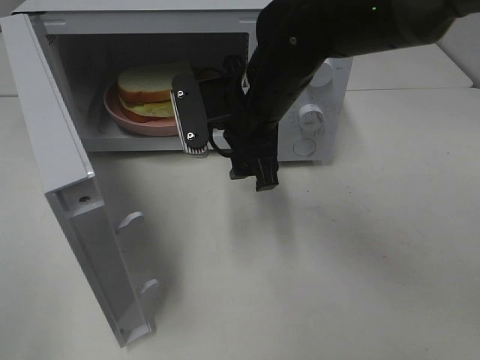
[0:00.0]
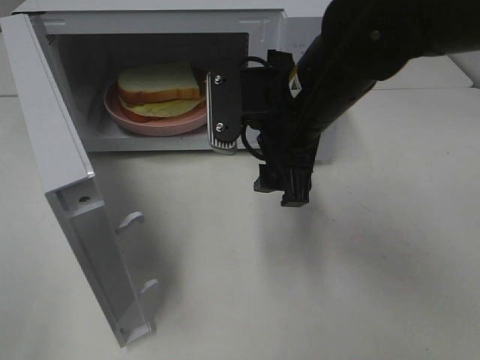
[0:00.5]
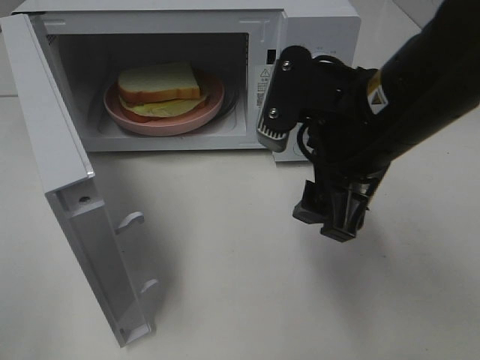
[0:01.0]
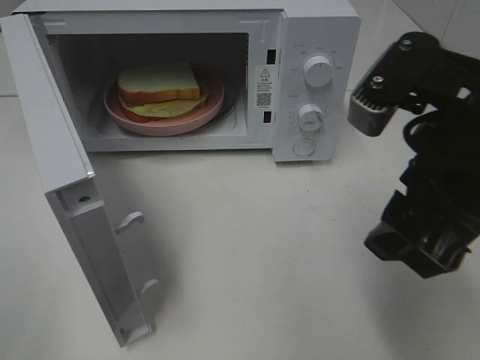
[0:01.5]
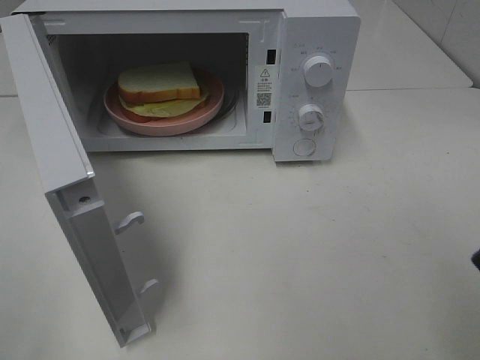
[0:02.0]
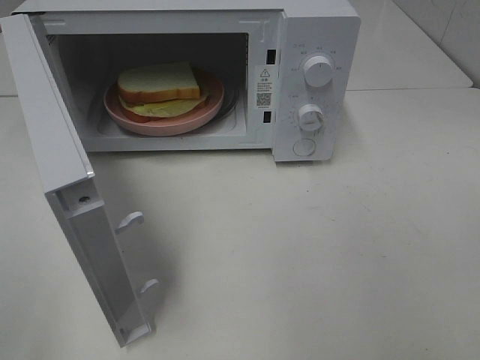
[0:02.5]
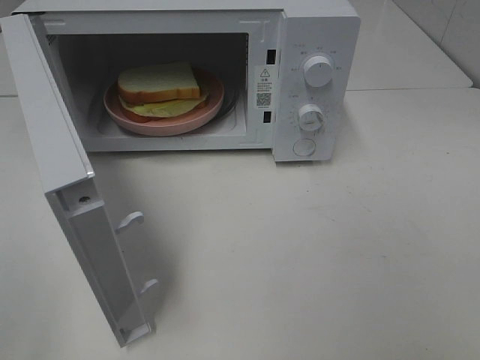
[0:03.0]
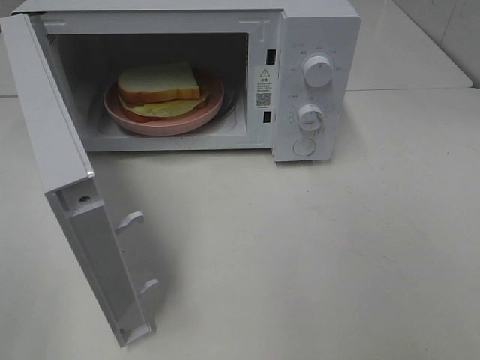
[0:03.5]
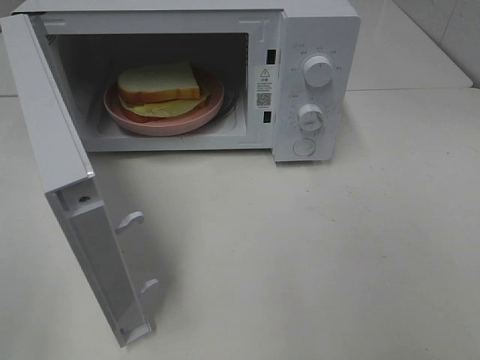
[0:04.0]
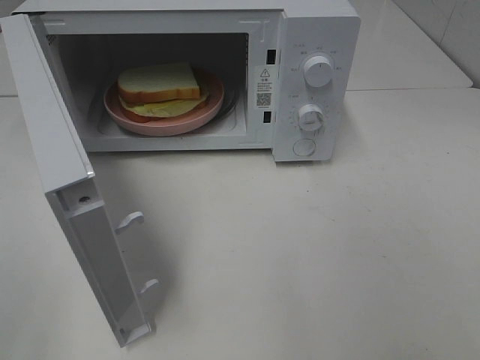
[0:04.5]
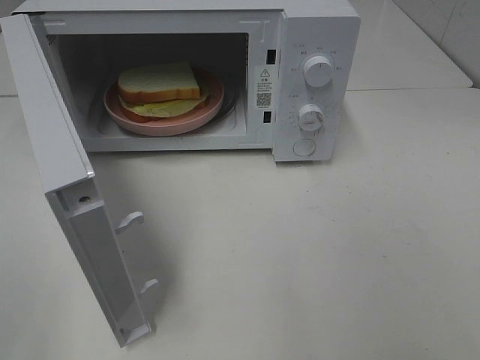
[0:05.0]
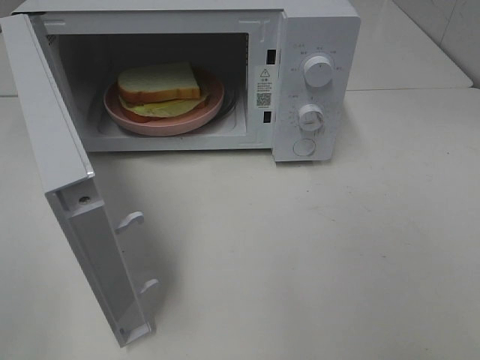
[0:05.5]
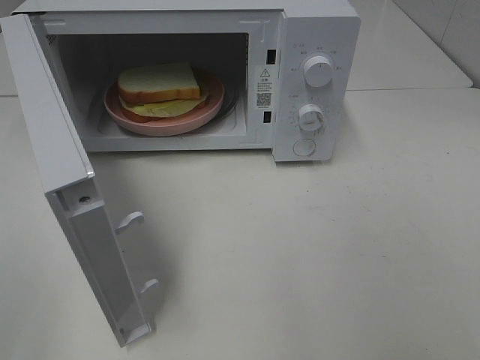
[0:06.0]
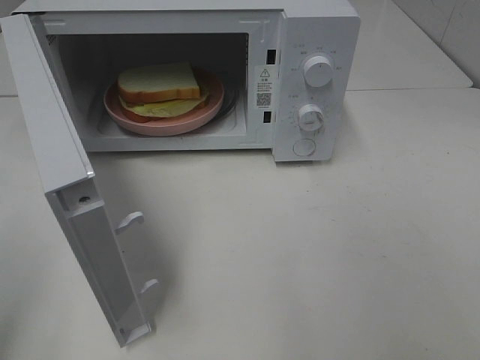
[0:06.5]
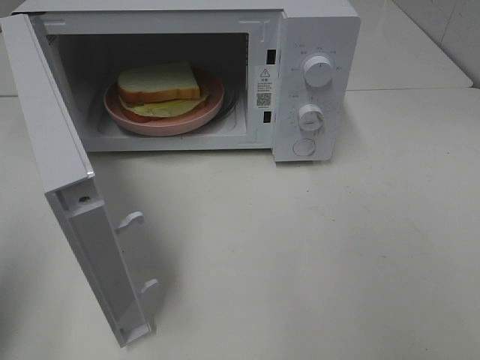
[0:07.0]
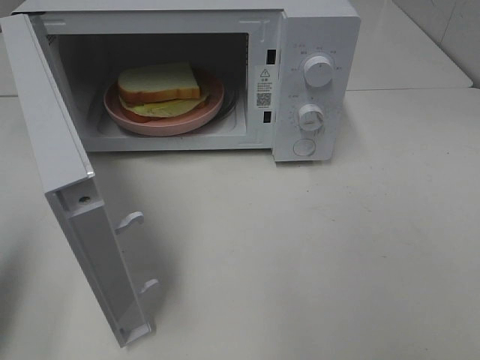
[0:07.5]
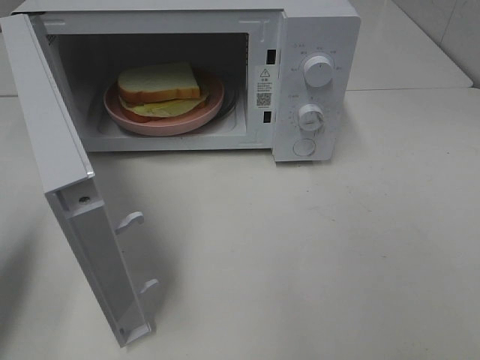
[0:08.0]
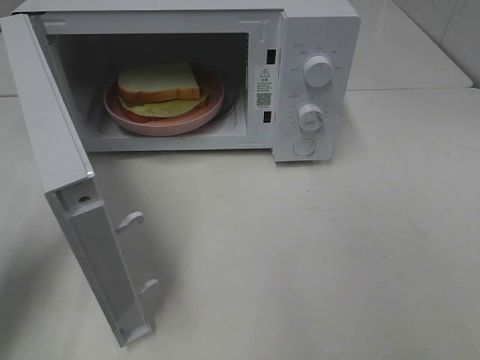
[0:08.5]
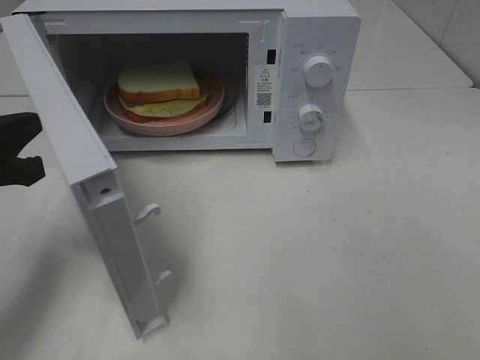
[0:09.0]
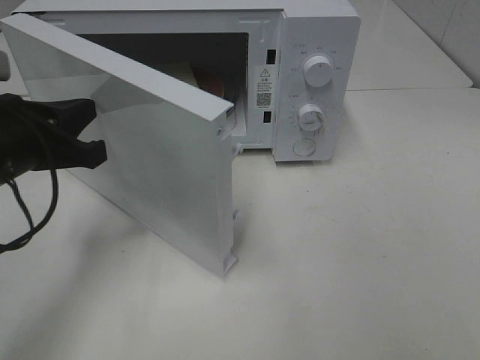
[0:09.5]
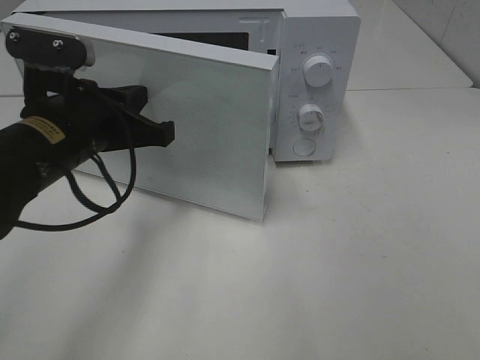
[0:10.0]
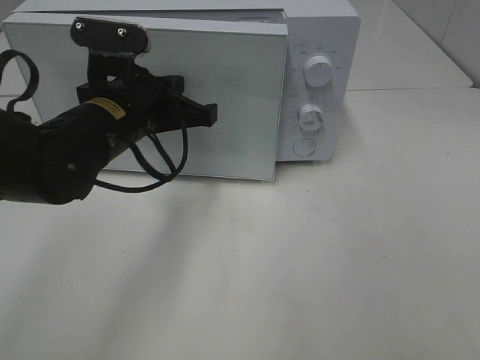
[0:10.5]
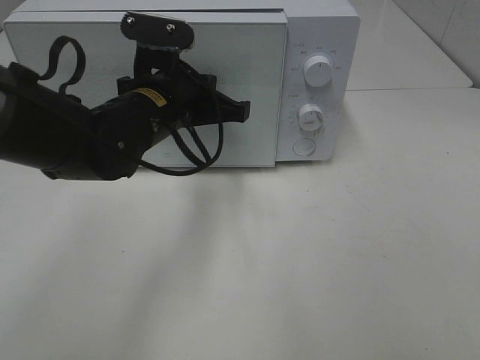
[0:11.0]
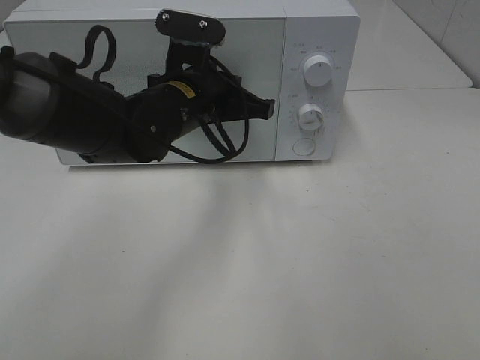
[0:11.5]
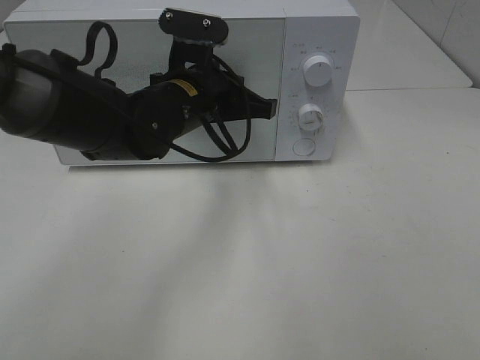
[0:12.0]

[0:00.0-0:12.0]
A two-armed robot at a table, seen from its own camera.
Task of the whole recording: Heat Sandwich.
0:00.0 to 0:02.0: The right gripper shifts approximately 30 cm backward, to the right and upward.
0:02.0 to 0:04.0: The right gripper shifts roughly 15 cm backward and to the right.
0:04.0 to 0:06.0: The two grippers keep their place.
0:06.0 to 0:08.0: The left gripper travels forward and downward by some 20 cm, and closes up.
0:08.0 to 0:10.0: The left gripper travels to the right and forward by approximately 20 cm.
0:10.0 to 0:12.0: The left gripper goes approximately 15 cm to the right and forward.

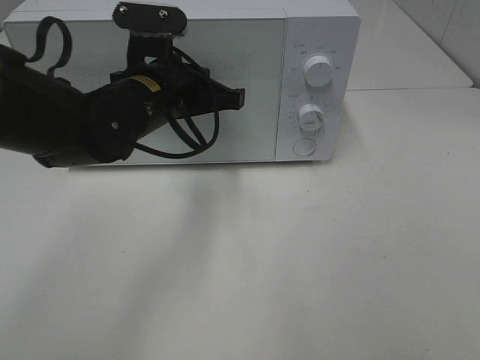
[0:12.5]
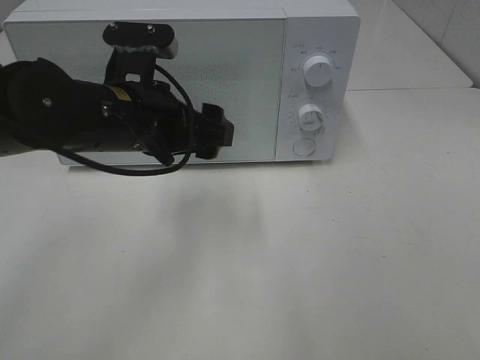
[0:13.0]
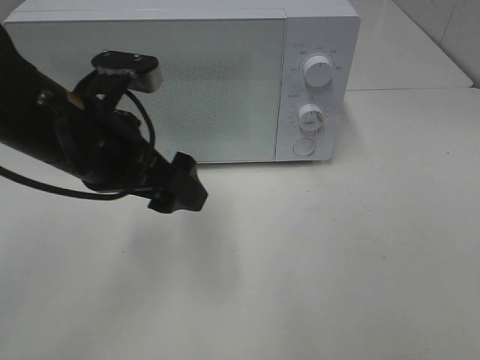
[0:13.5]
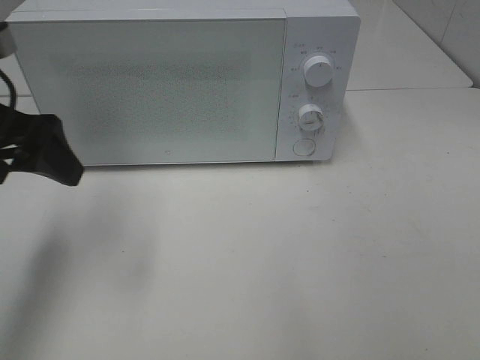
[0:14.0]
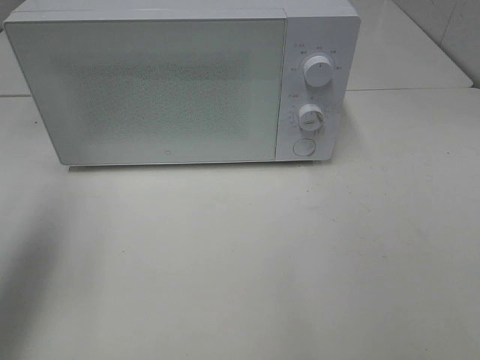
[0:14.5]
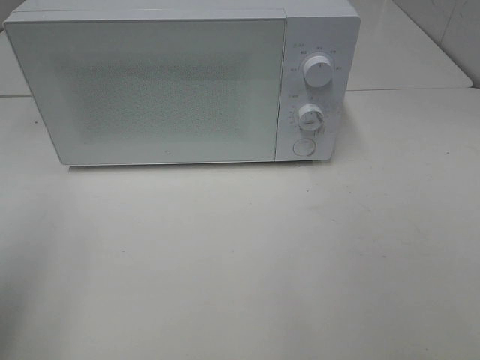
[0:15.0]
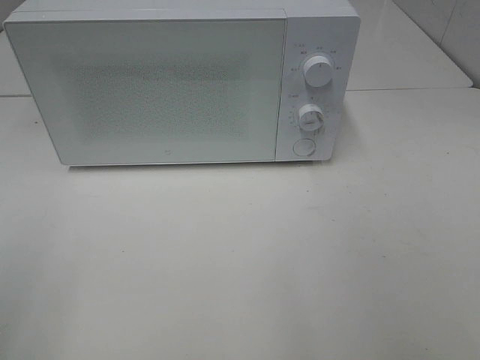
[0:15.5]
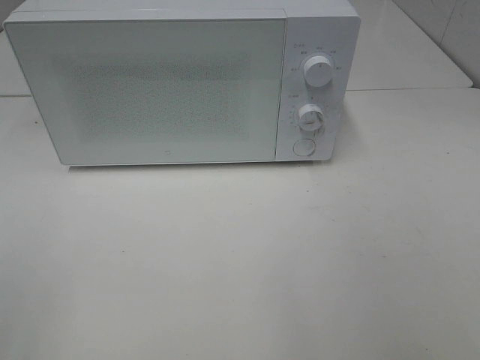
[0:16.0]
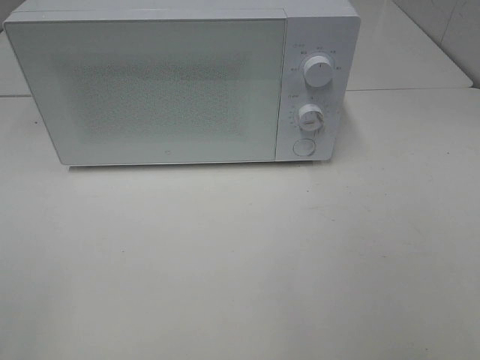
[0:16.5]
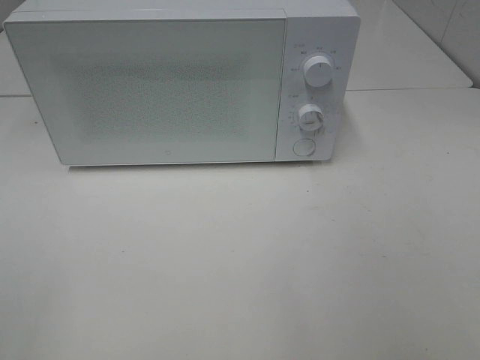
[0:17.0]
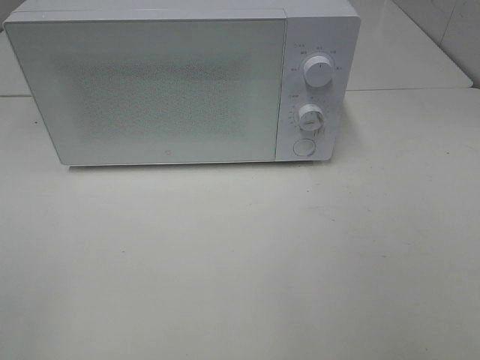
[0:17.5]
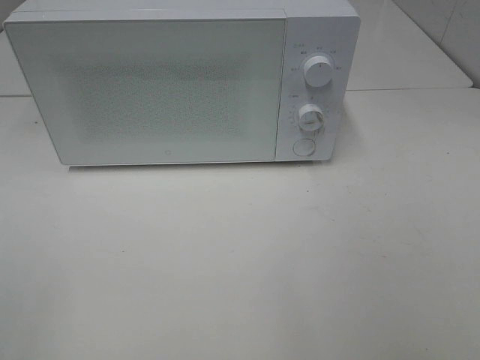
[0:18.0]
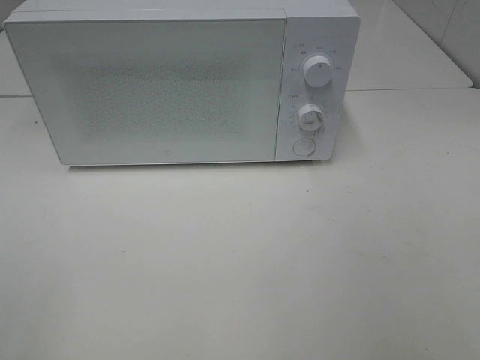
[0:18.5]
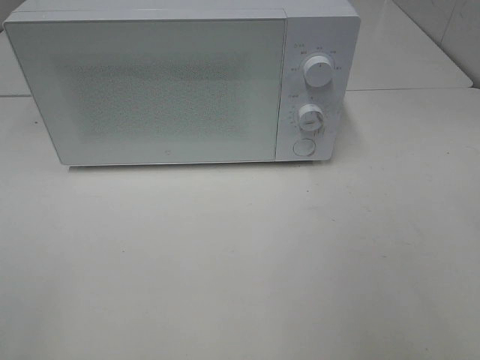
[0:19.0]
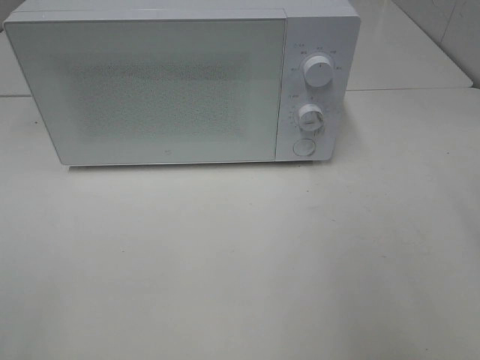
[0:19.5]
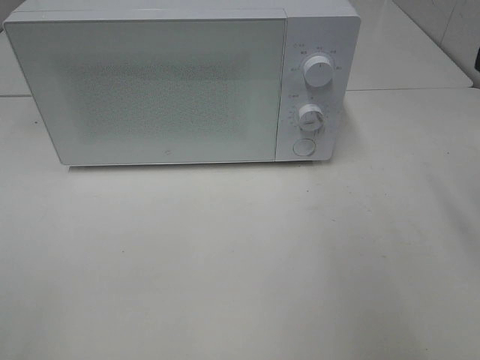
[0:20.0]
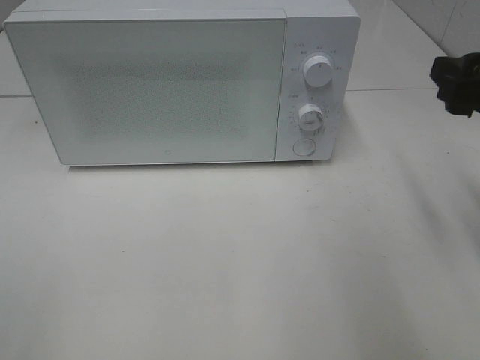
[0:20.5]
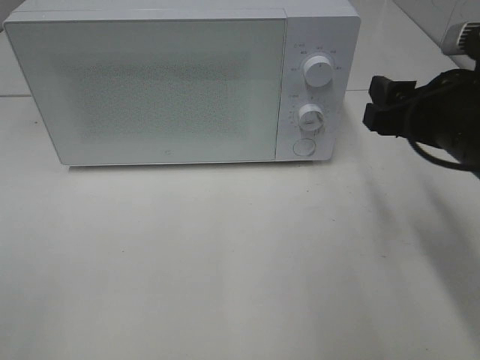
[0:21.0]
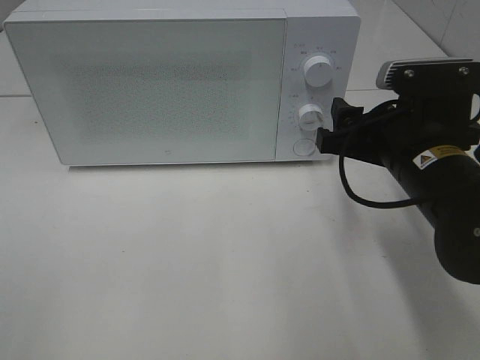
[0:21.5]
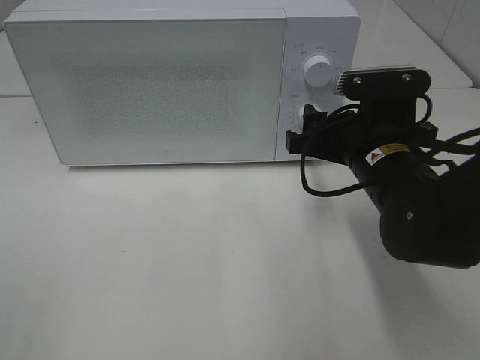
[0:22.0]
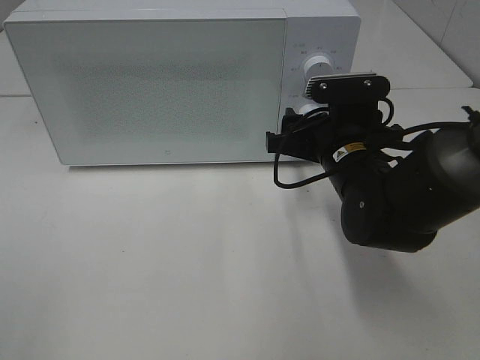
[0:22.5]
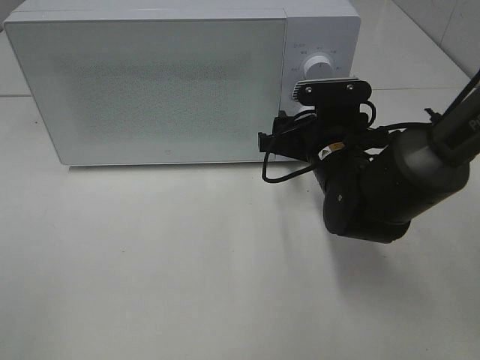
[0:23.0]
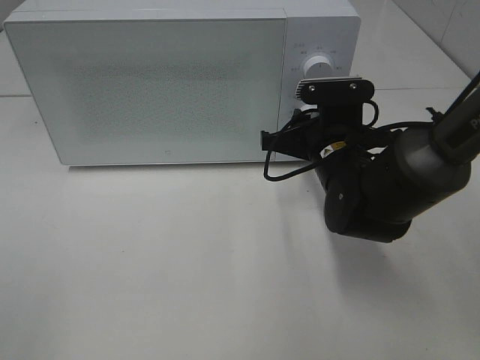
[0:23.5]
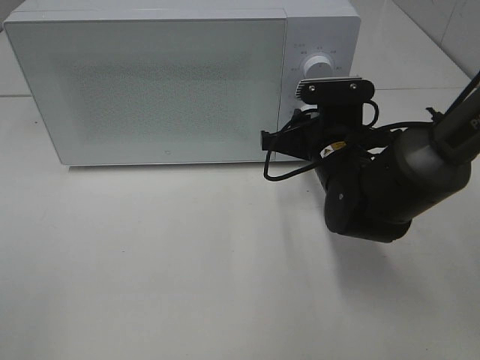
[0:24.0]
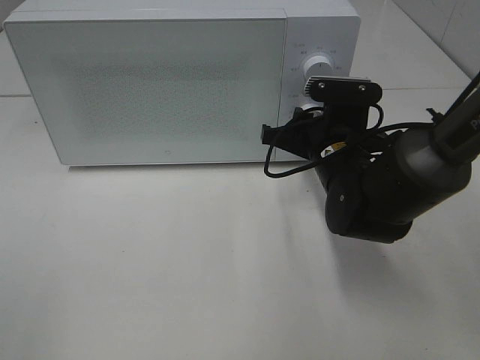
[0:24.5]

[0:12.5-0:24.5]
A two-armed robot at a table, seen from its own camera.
Task of the whole recording: Heat Sandwich.
0:12.5 to 0:14.5: The left gripper moves to the left, upward and backward, some 25 cm, and opens up.
0:14.5 to 0:16.5: The left gripper shifts about 20 cm backward.
0:18.5 to 0:20.5: The right gripper shifts about 20 cm forward.
0:20.5 to 0:22.5: The right gripper goes about 20 cm to the left, downward and forward.
0:22.5 to 0:24.5: The right gripper closes its fingers.

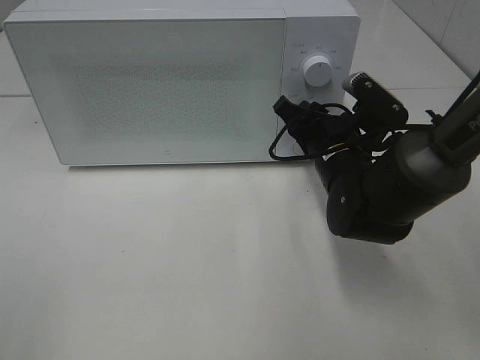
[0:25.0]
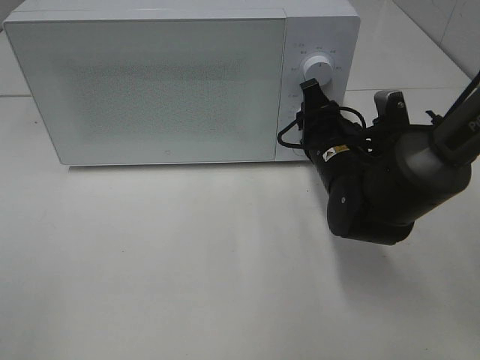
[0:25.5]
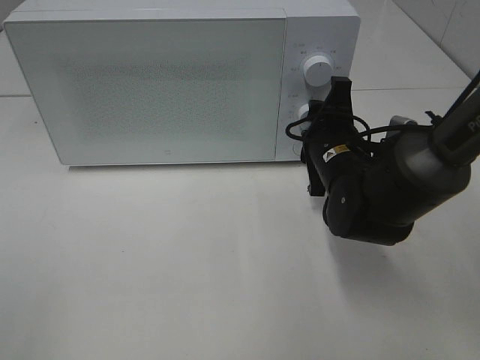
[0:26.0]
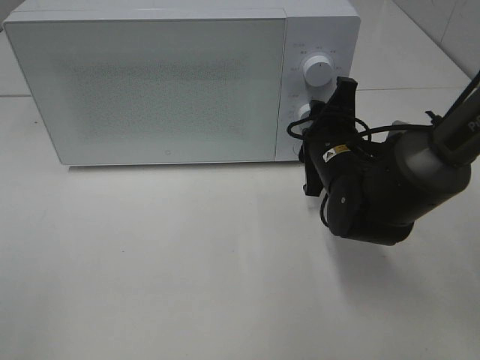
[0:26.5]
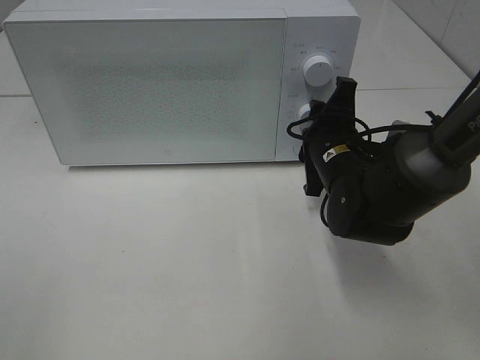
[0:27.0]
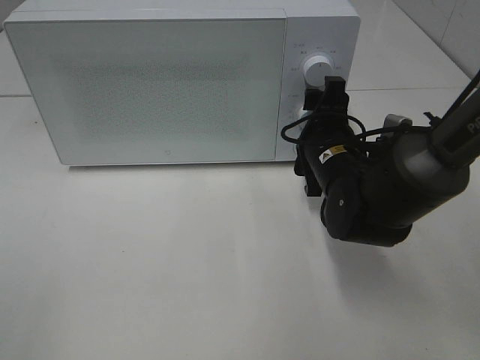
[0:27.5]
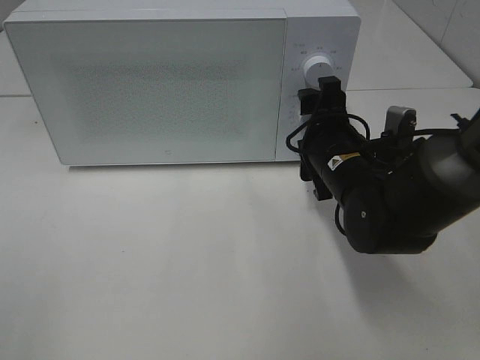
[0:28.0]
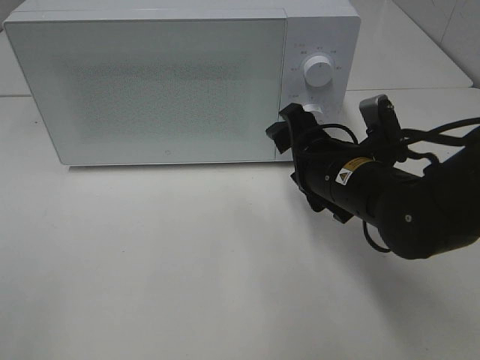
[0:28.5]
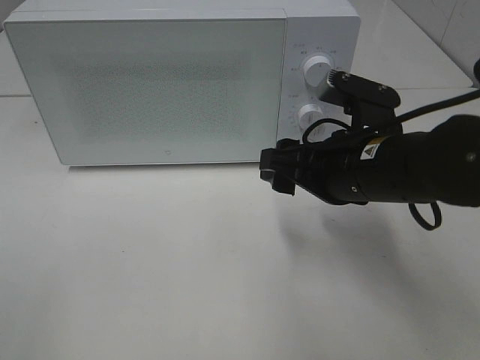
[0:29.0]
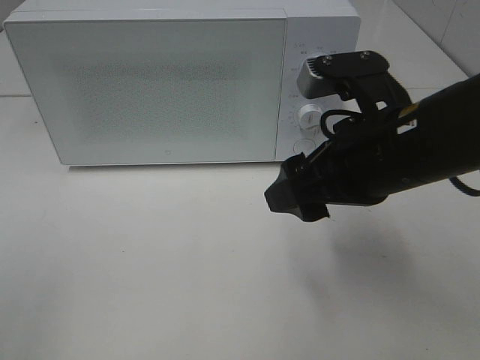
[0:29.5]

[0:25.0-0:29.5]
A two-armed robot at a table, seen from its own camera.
Task of the whole recording: Heat Sandwich.
Step, 0:25.0 to 0:28.0: Right hand: twist timer button.
0:27.0 to 0:29.5: The right gripper goes about 15 cm upward and backward, and opens up.
